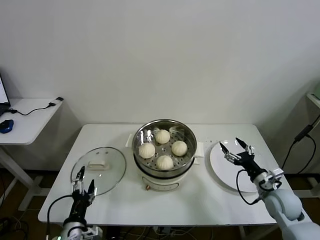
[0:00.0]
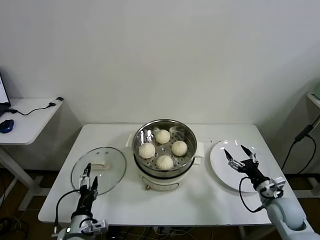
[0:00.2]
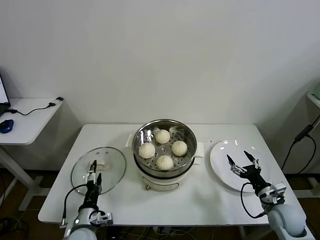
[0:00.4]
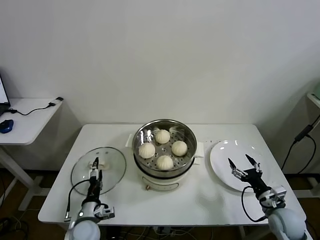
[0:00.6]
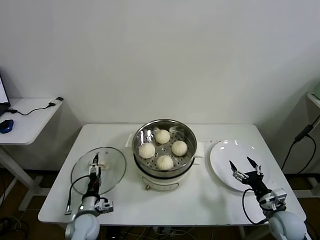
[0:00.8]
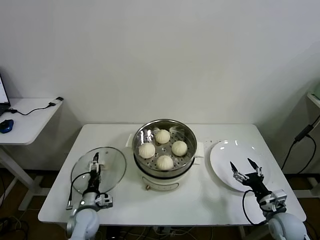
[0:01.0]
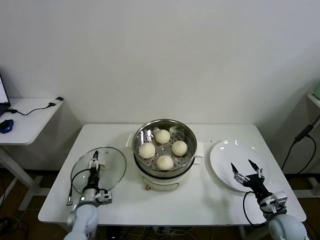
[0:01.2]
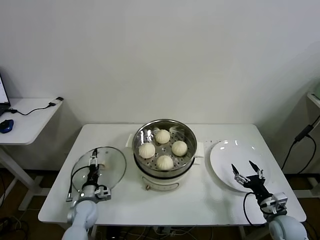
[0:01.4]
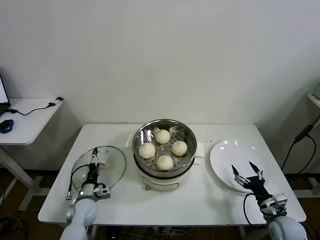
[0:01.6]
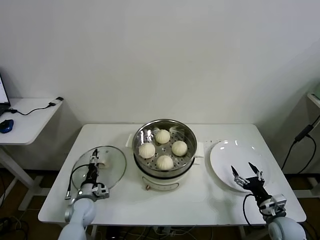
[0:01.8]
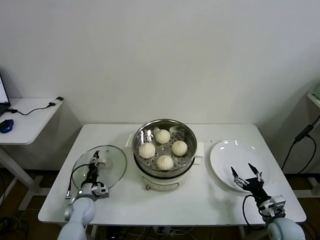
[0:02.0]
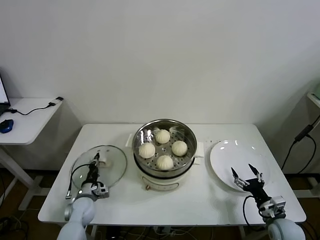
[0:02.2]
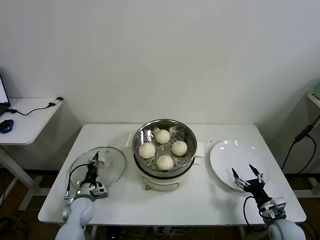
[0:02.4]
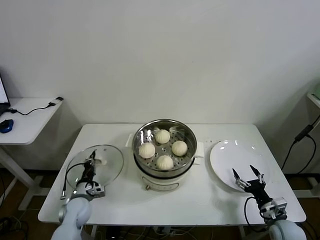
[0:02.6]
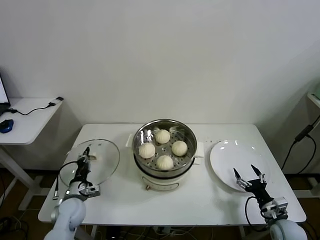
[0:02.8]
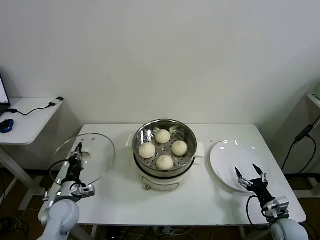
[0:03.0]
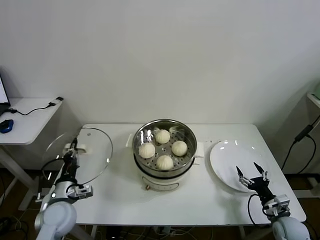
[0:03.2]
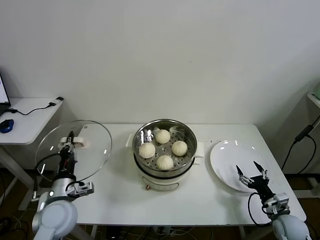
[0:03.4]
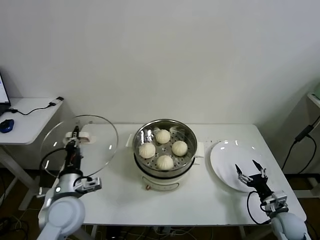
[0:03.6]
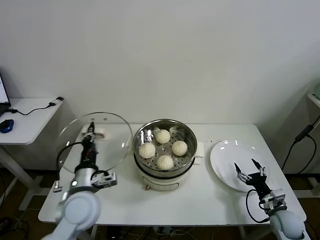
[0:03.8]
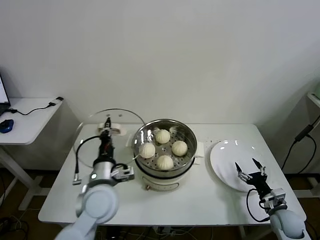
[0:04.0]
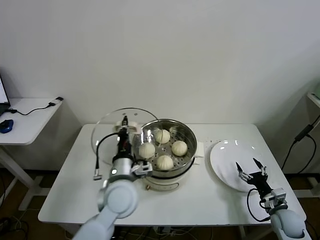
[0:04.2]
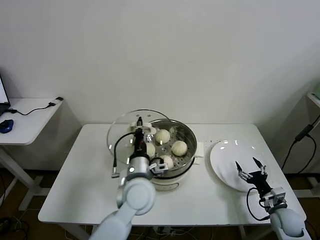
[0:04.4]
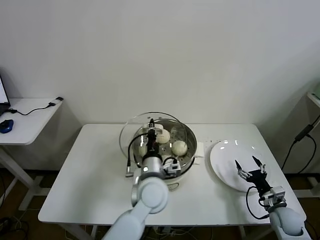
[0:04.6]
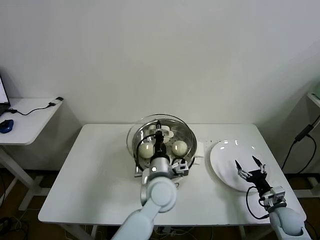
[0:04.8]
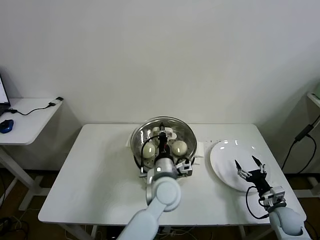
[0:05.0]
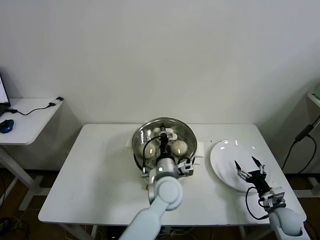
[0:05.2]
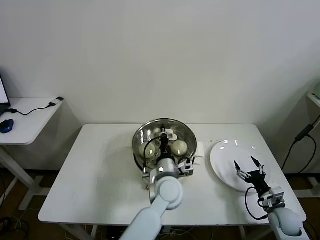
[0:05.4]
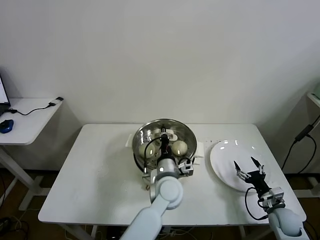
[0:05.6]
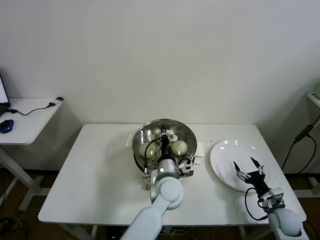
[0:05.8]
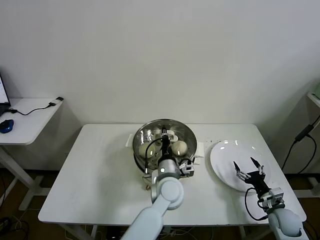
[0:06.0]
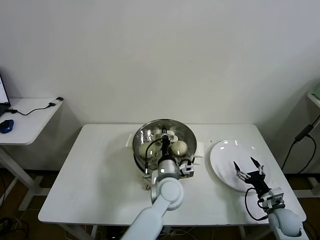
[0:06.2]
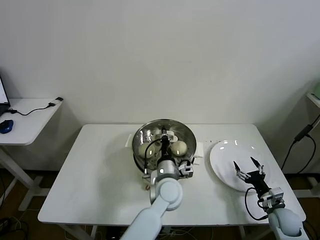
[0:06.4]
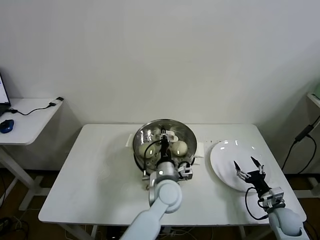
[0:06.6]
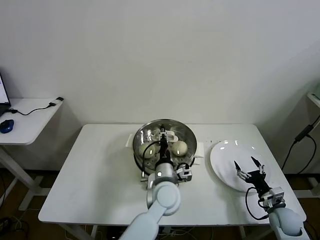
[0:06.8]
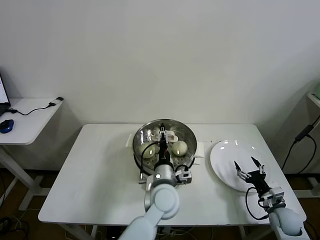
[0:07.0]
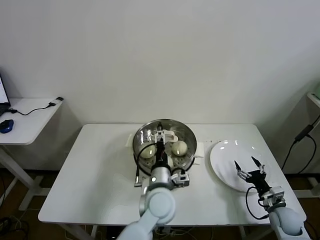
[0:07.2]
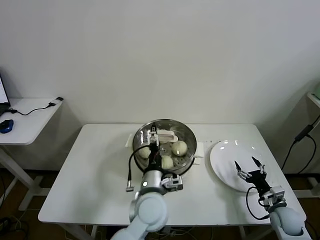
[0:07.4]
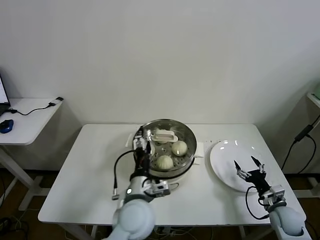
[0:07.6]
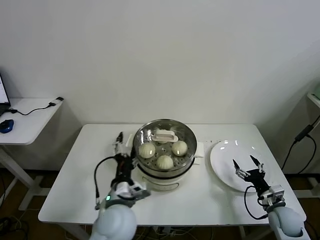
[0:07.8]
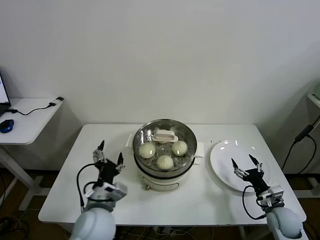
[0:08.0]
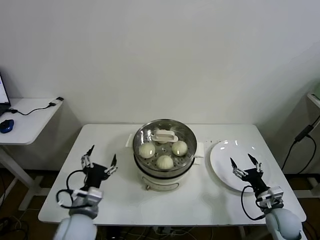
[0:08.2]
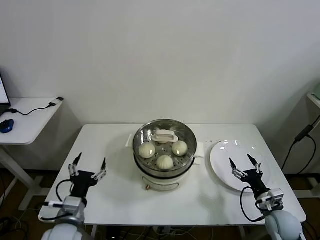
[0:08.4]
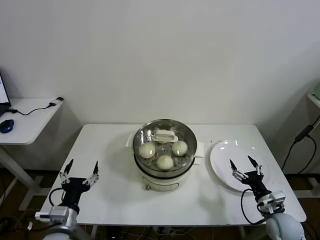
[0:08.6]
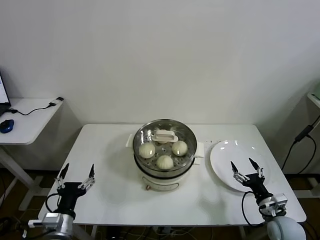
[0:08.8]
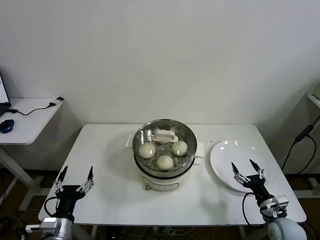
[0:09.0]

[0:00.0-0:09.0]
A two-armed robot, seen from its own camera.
Task of the whole recording: take steamed baozi put them in steamer then cover it.
Step, 0:00.0 to 0:02.2: Grasp the pot lid with left gripper.
Step, 0:02.6 to 0:07.2: Place the pot lid on the steamer with left gripper.
0:00.0 to 0:01.6: The left gripper is displaced forward and downward by approximately 20 cm; the right gripper shifts roughly 10 cm downward and backward.
0:01.6 to 0:03.0: The left gripper travels upward by about 10 cm, and closes its fingers.
0:03.0 to 0:04.4: The left gripper travels to the right and upward by some 30 cm.
0:04.4 to 0:06.0: The left gripper heads to the right and downward, covering about 10 cm.
0:06.0 to 0:07.6: The left gripper shifts roughly 10 cm backward and to the left, and opens.
0:07.6 to 0:09.0: The right gripper shifts by roughly 5 cm; the left gripper is displaced to the left and backward by about 25 cm.

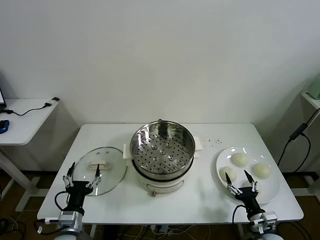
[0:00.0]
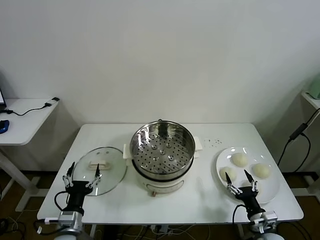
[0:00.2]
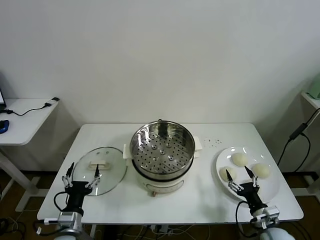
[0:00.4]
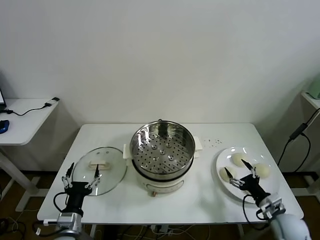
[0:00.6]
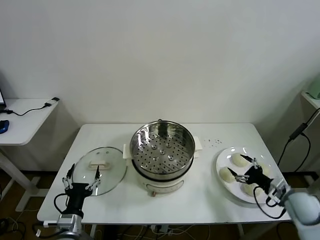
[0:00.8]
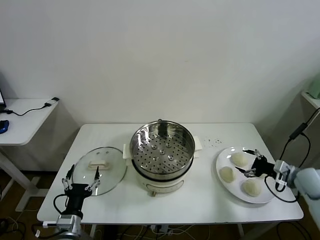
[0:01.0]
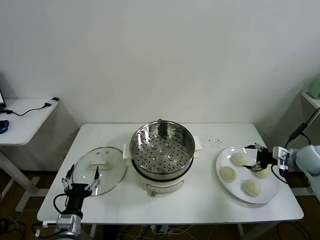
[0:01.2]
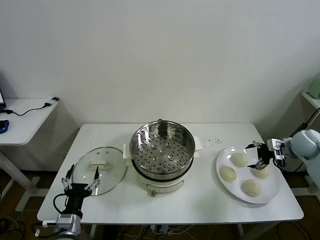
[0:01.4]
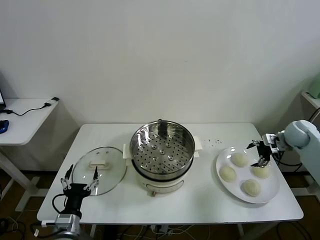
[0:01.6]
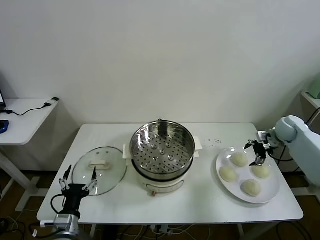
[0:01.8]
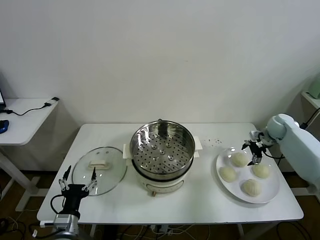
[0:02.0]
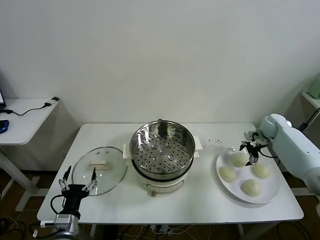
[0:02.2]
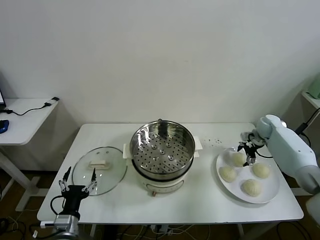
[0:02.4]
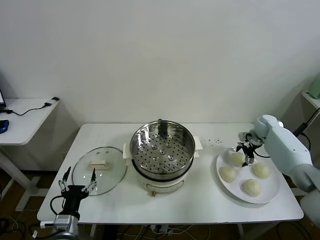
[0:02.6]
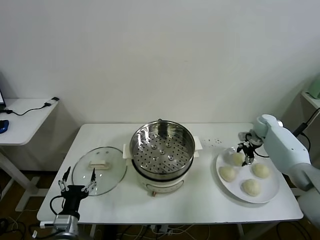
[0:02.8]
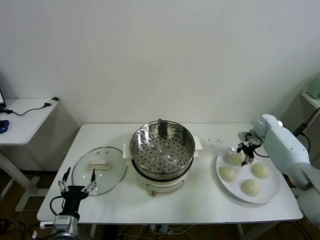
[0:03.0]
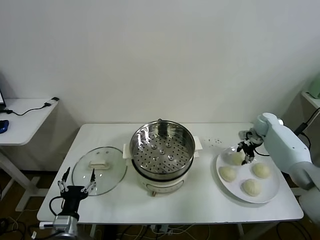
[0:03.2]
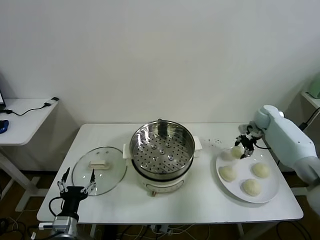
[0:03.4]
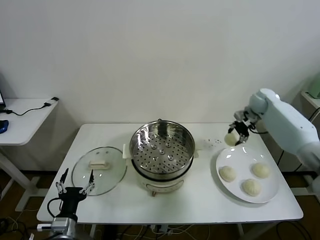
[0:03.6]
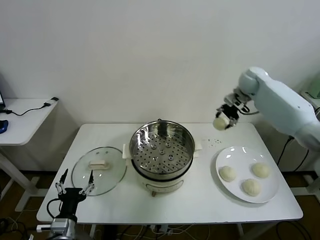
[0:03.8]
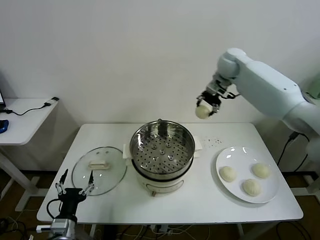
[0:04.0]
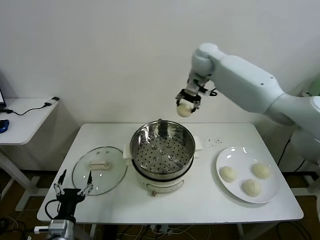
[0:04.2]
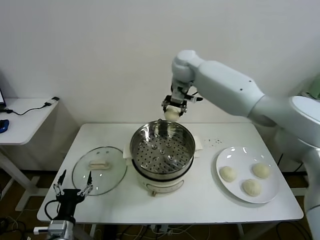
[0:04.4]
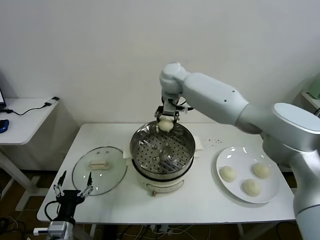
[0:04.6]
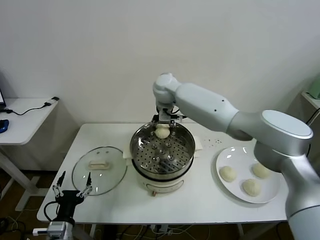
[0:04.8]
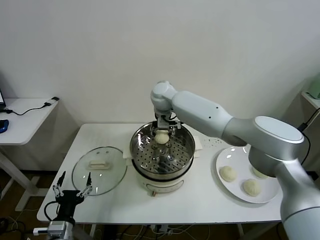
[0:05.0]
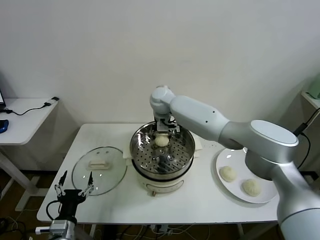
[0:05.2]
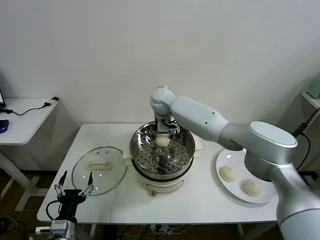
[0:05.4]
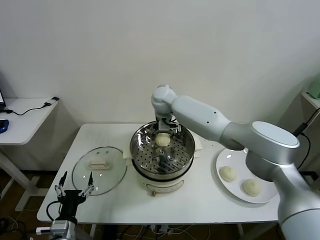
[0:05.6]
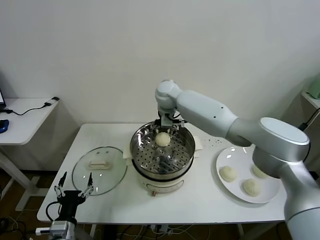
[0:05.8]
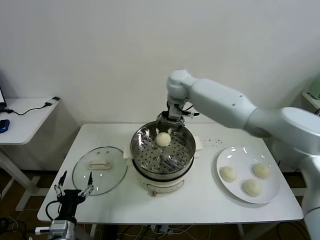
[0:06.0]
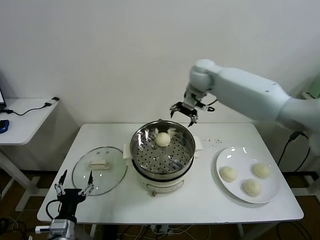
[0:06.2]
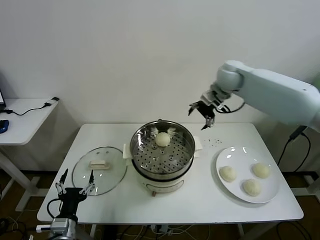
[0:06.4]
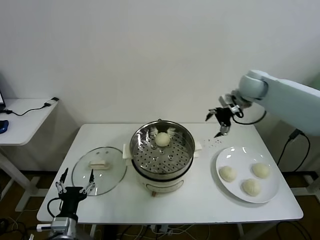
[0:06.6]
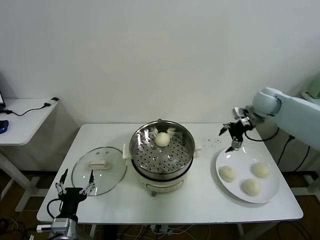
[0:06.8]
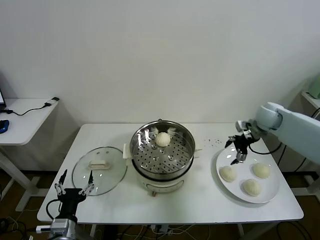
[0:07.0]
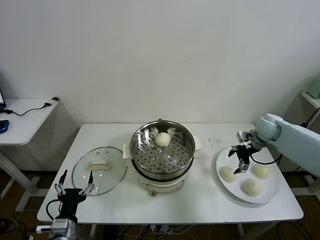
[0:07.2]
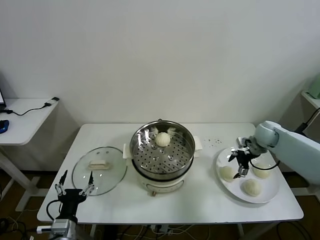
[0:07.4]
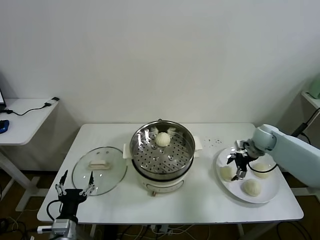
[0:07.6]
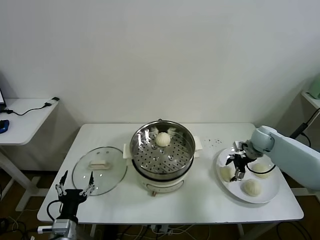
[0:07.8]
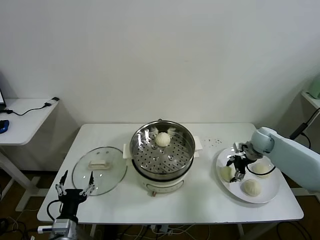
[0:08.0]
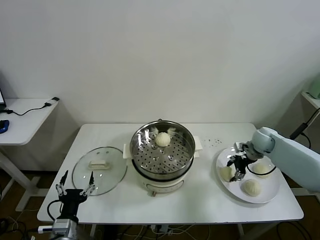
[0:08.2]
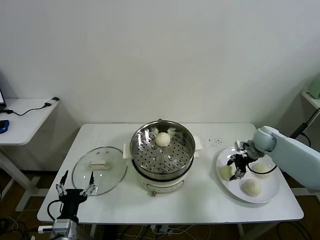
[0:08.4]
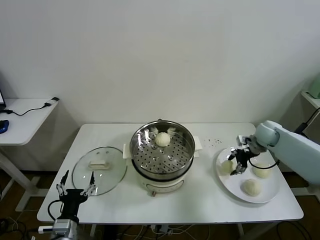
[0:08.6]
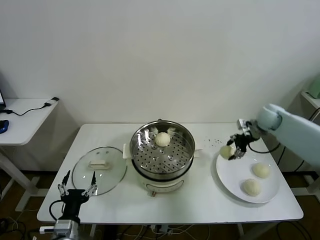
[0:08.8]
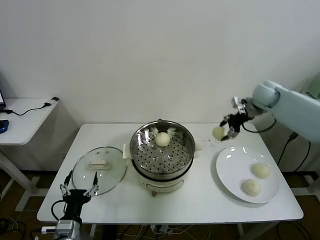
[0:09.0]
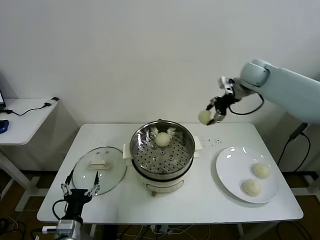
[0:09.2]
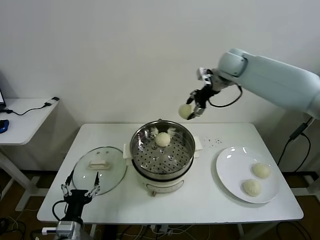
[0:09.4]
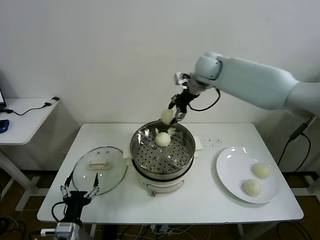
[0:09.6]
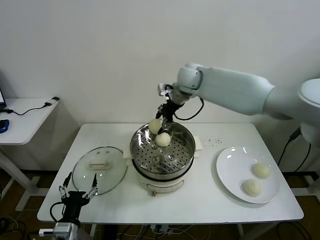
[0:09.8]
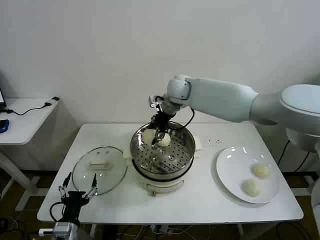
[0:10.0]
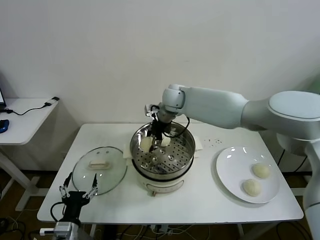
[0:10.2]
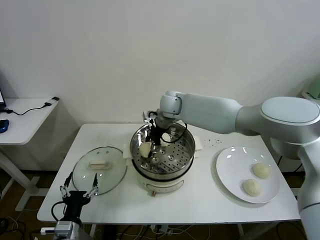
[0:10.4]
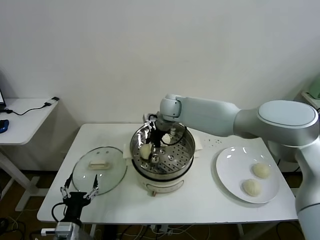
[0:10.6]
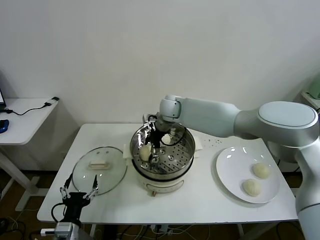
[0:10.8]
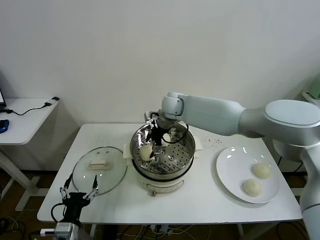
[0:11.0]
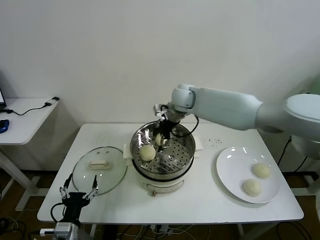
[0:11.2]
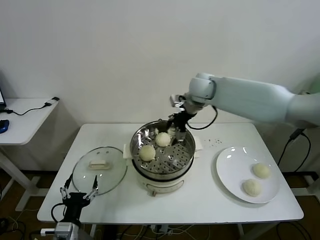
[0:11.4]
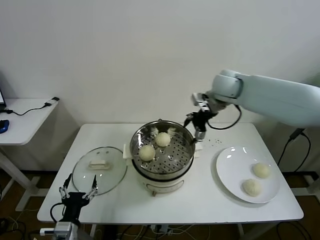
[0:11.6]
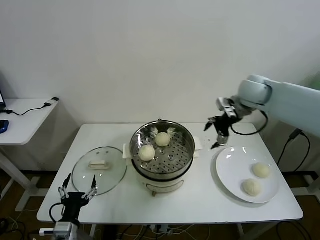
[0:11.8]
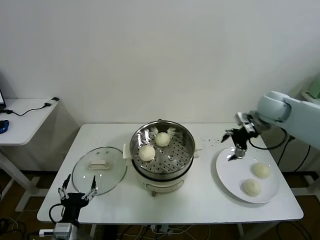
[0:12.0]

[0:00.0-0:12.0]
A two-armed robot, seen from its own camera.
Task of the whole recording: take steamed baozi put them in steamer then cover it.
Step, 0:00.0 to 0:03.0: Grasp the baozi in the plate with right gripper.
Step, 0:03.2 to 0:05.6: Place the baozi on the steamer with right gripper.
Step, 0:05.8 to 0:08.2: Grasp the baozi in the plate with right gripper.
Step, 0:08.6 to 0:10.8: Place the baozi on the steamer with right gripper.
0:01.6 to 0:03.0: The right gripper goes some 10 cm forward and downward, and closes.
0:03.0 to 0:04.4: The right gripper travels to the left and upward by some 50 cm.
0:04.4 to 0:06.0: The right gripper moves some 10 cm downward and comes back, and opens its fingers.
0:06.0 to 0:07.6: The right gripper heads to the right and downward, covering approximately 35 cm.
0:07.6 to 0:09.0: The right gripper is displaced upward by about 20 cm, and closes.
0:09.0 to 0:10.4: The right gripper shifts some 30 cm to the left.
0:10.4 to 0:12.0: The right gripper travels to the right by roughly 35 cm, and opens up.

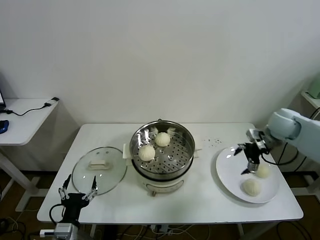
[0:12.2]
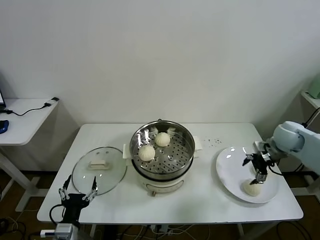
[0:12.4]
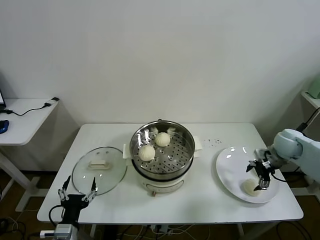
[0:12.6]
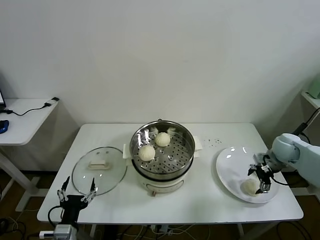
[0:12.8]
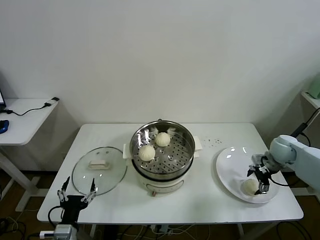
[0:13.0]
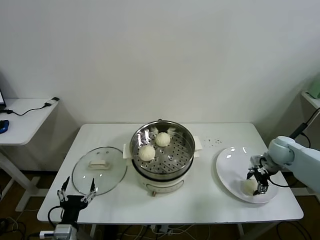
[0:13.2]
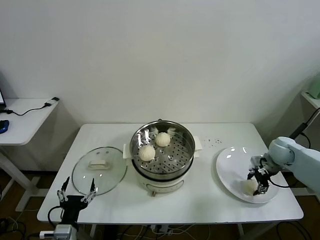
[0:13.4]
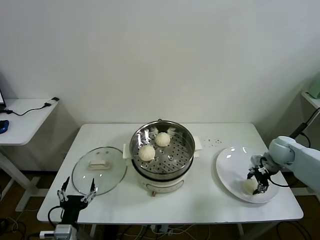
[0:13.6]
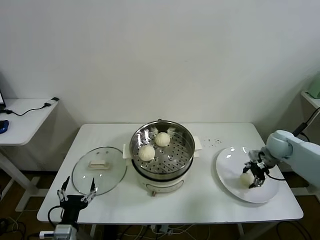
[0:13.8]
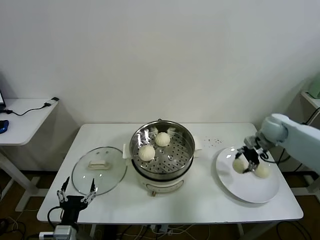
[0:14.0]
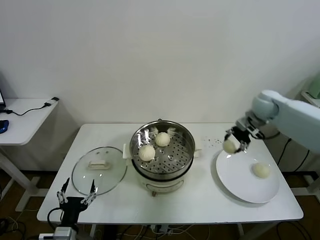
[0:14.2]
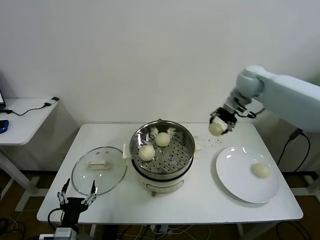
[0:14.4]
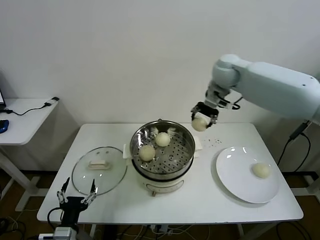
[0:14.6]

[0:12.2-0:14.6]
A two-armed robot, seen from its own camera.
Task of the whole recording: take steamed baozi put them in steamer then cover it.
Step, 0:12.2 to 0:13.4: Grasp the baozi in the plate with right gripper.
0:12.2 to 0:13.4: The right gripper moves downward, approximately 10 cm, and closes.
0:13.4 to 0:14.6: The right gripper travels upward, to the left and forward by about 40 cm.
